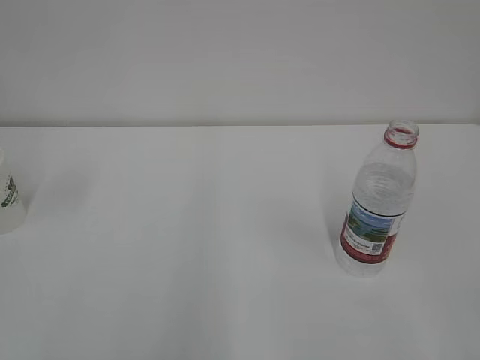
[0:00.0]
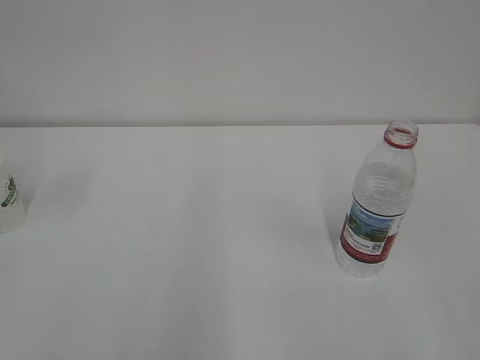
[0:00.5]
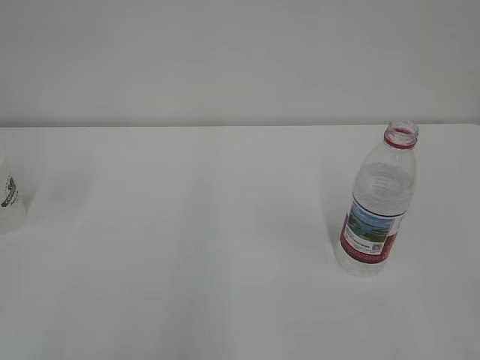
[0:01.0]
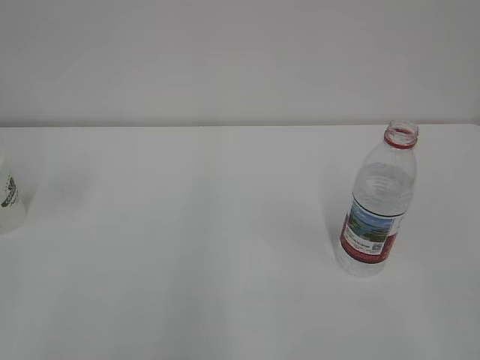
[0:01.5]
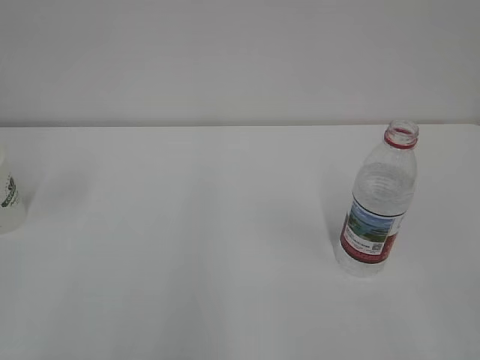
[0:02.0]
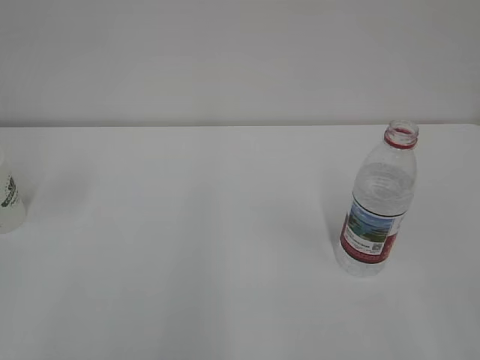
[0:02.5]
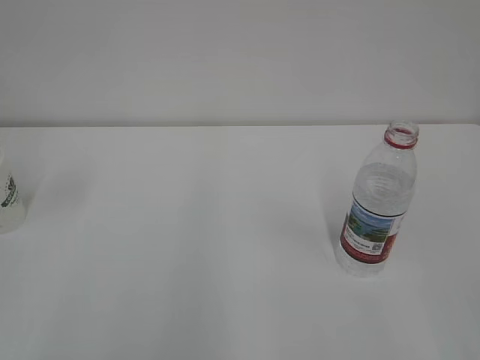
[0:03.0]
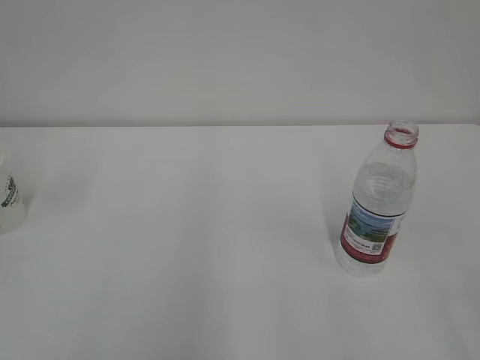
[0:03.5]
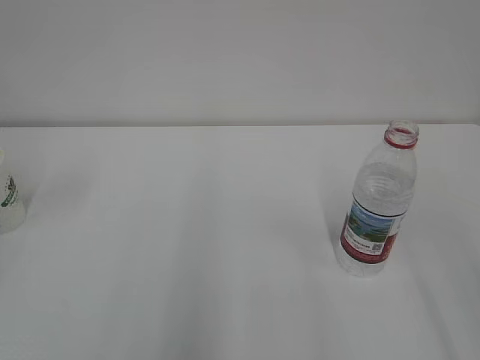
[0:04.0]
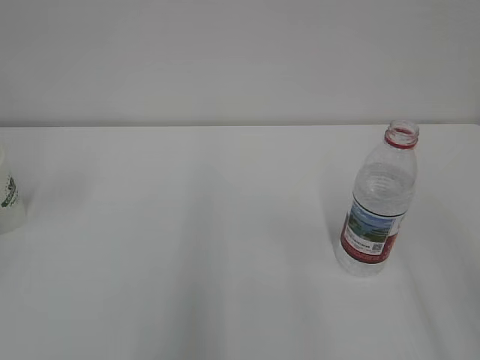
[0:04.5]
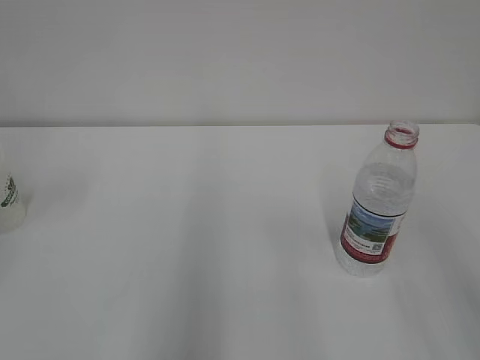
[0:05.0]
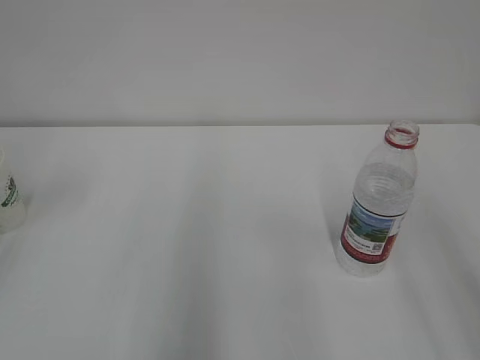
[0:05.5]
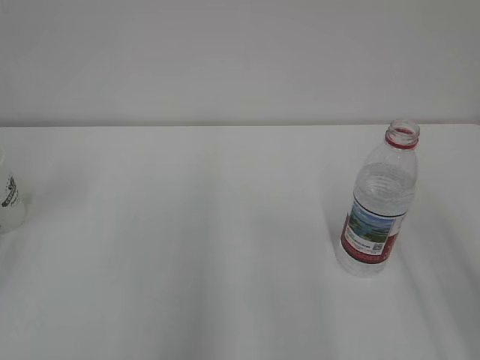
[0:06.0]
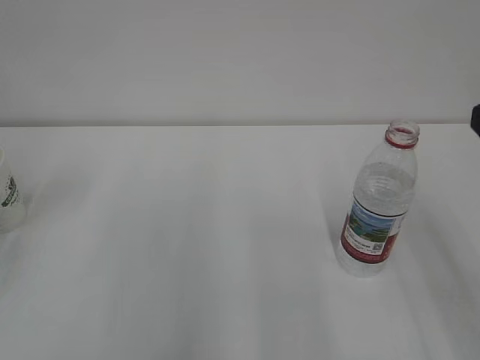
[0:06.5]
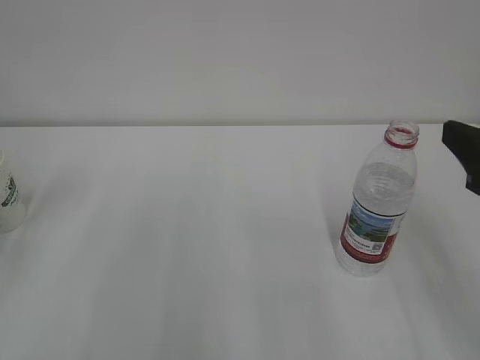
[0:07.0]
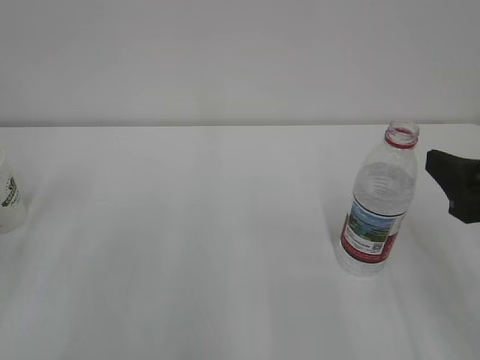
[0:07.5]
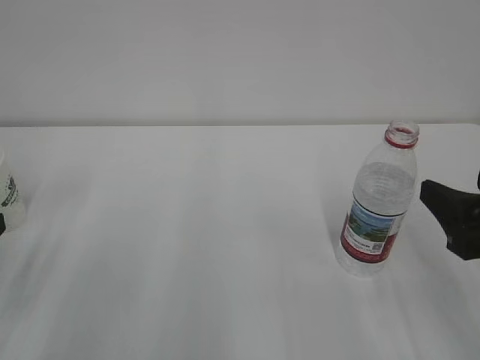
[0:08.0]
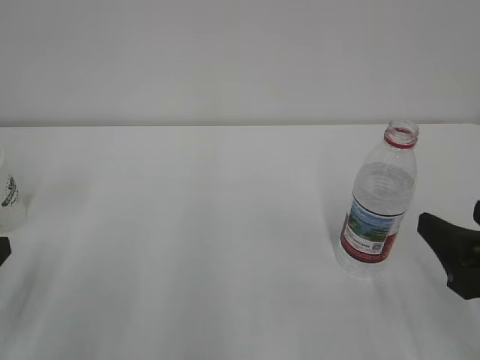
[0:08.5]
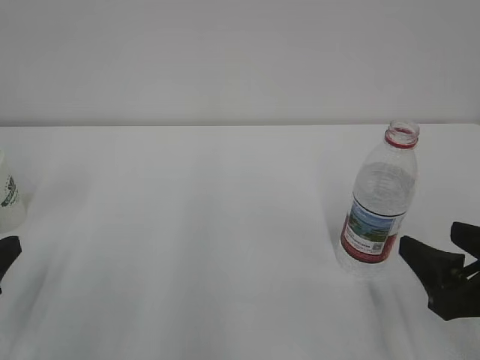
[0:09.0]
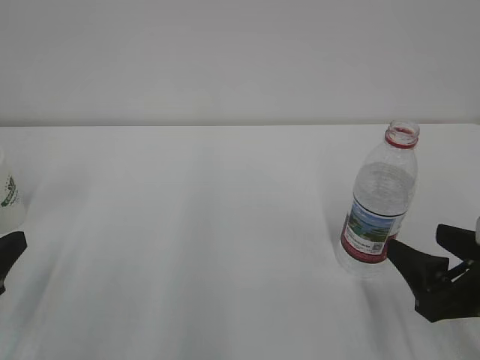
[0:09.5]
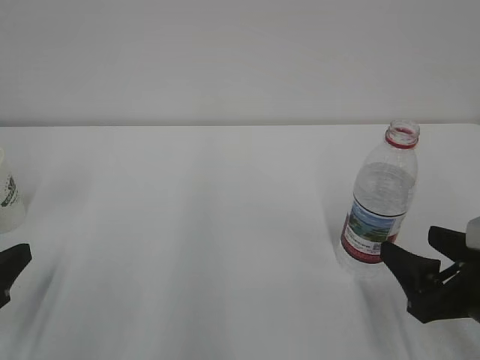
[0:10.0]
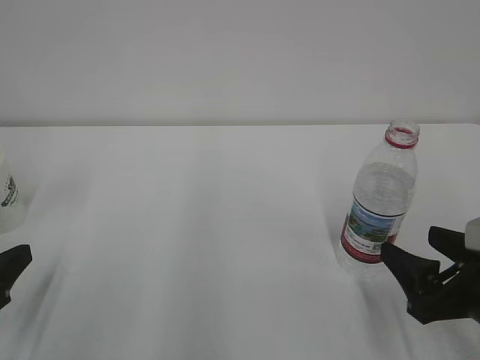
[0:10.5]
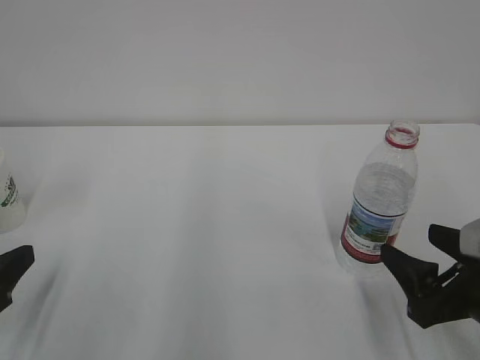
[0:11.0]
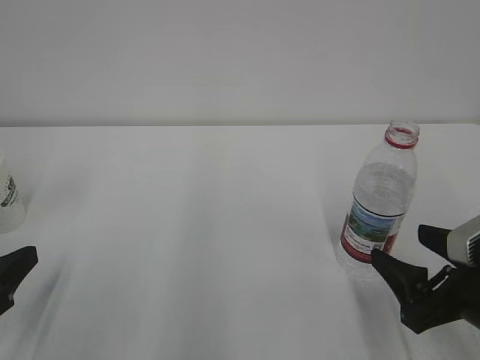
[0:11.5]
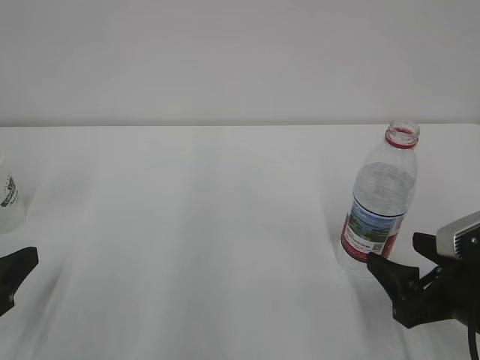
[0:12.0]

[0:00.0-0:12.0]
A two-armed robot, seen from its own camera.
0:06.0 to 0:08.0: The right gripper shifts approximately 10 cm downward.
0:08.0 to 0:10.0: The right gripper is displaced downward by about 10 cm.
0:10.0 to 0:12.0: There are only small adjustments of the grippers.

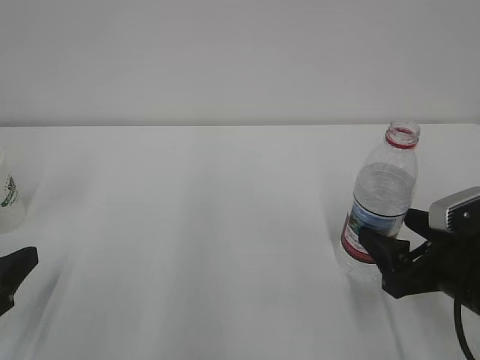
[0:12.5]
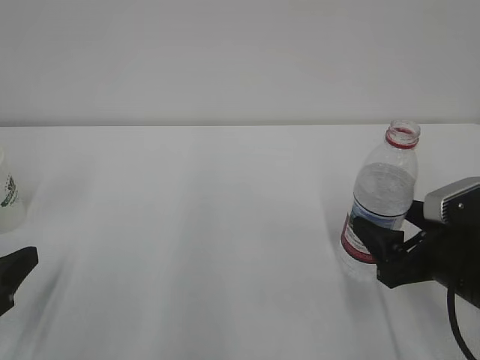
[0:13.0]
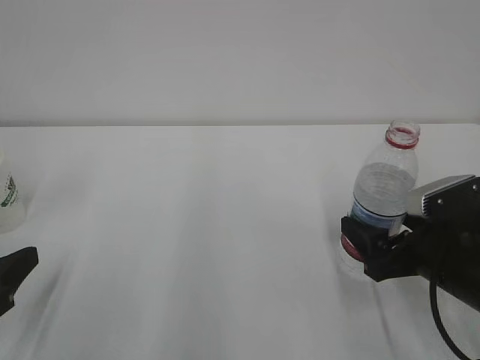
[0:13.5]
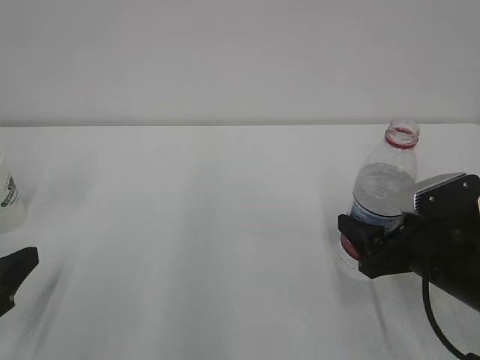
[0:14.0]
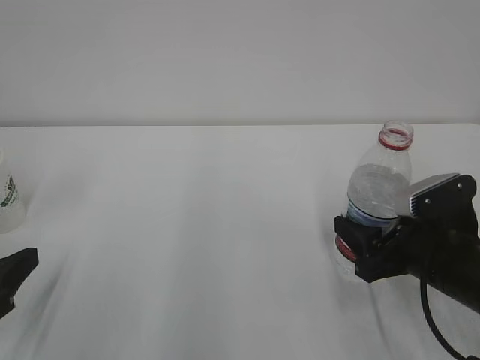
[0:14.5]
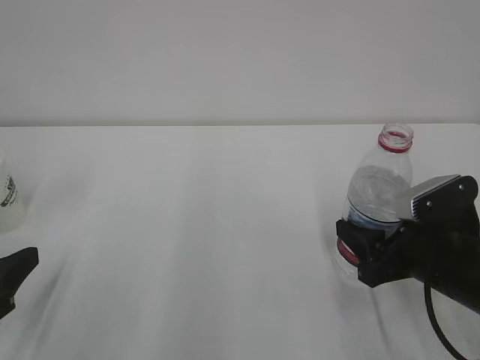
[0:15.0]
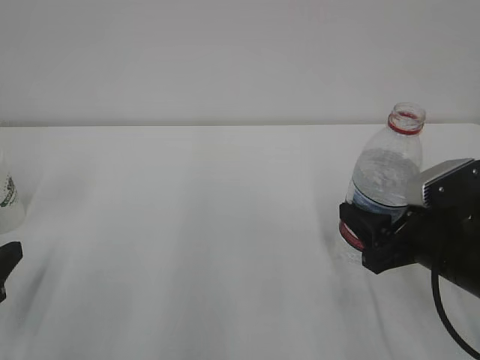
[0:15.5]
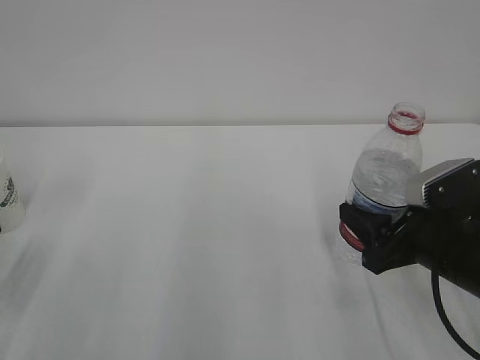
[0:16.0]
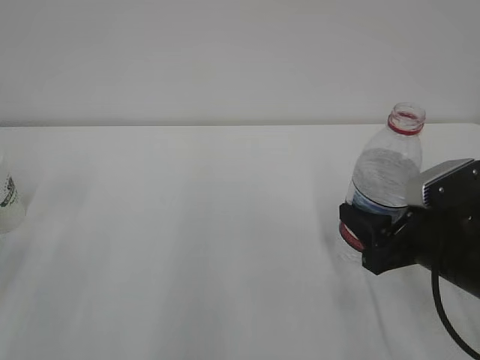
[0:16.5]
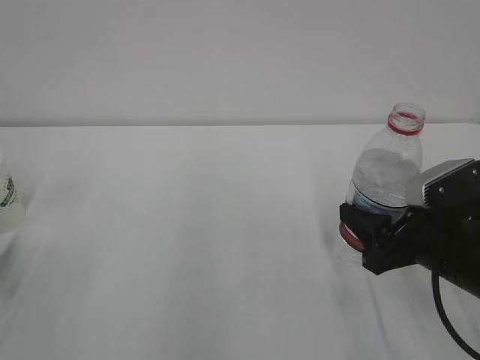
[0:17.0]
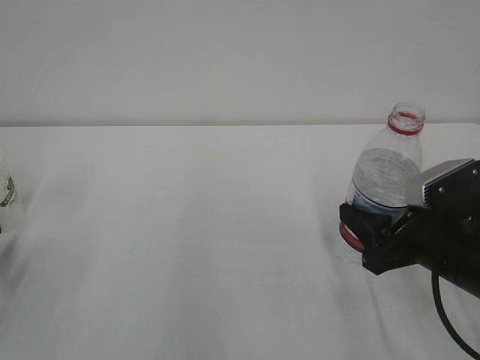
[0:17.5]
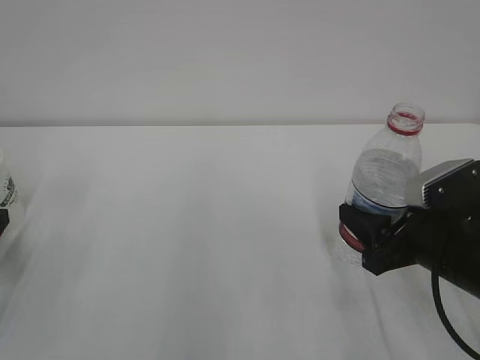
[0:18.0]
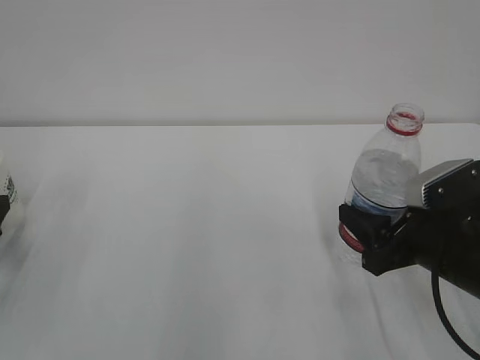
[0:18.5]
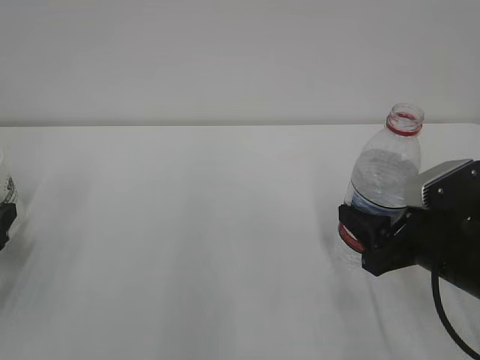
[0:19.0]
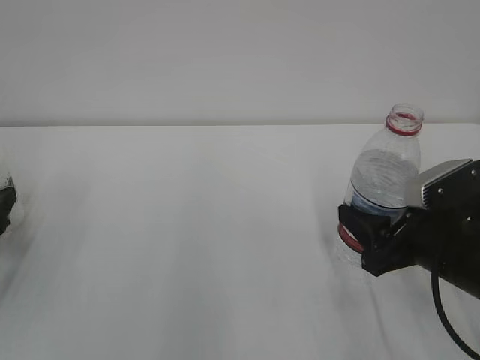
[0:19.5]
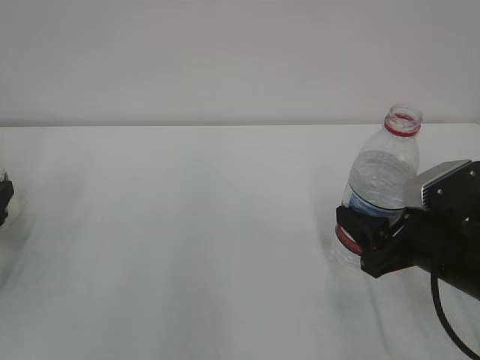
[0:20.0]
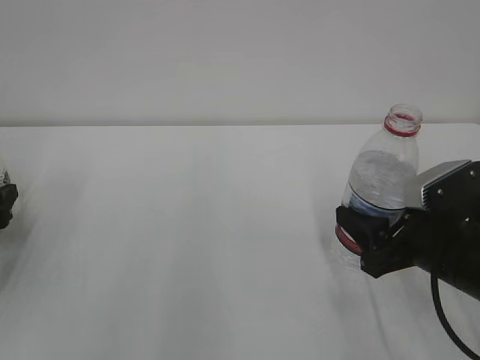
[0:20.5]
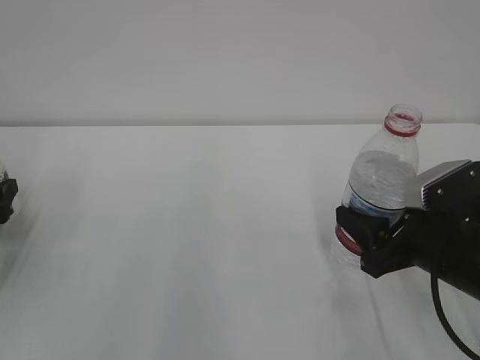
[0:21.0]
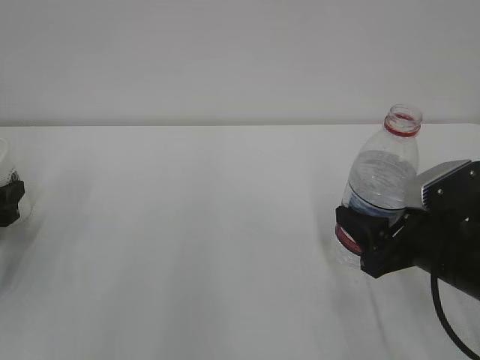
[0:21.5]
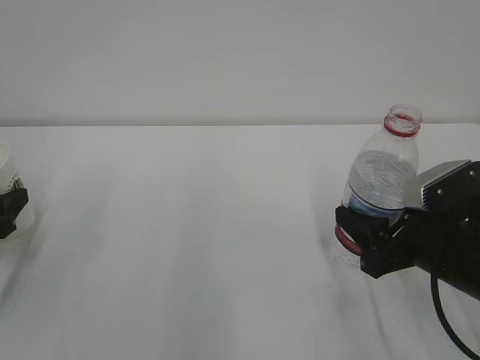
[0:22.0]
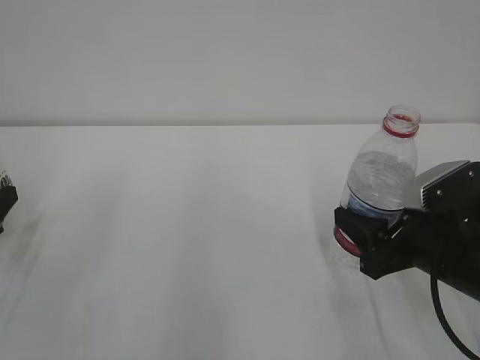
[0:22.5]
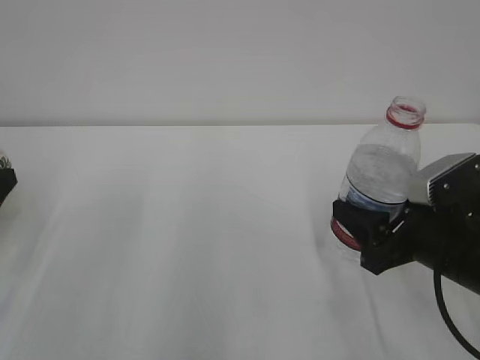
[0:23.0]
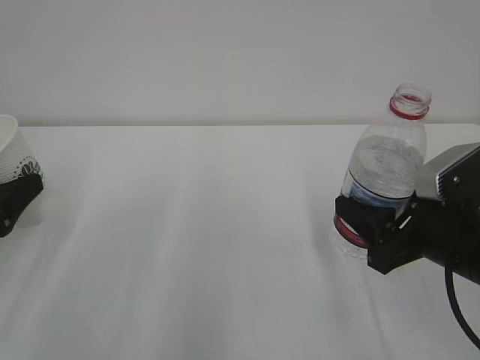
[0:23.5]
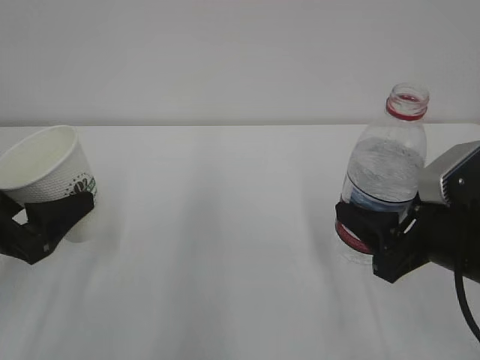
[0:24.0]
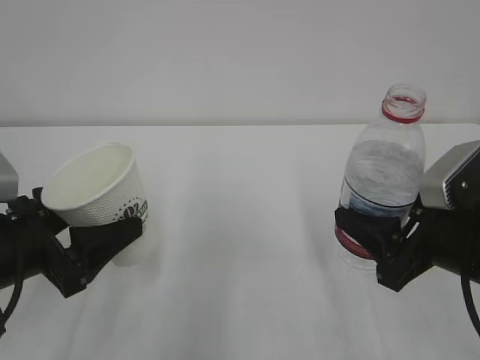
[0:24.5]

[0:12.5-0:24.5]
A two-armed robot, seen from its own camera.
0:12.5 to 0:14.5: The right gripper closes up.
0:14.5 to 0:16.5: The left gripper is displaced to the left by about 5 cm.
0:20.5 to 0:22.5: The left gripper heads backward, covering some 5 cm, and closes its fingers.
0:22.5 to 0:24.5: The left gripper heads to the right, covering about 10 cm; the right gripper moves about 5 cm.

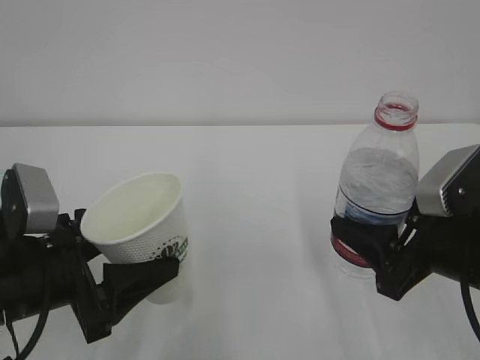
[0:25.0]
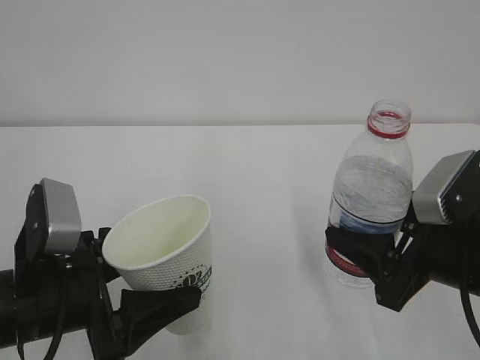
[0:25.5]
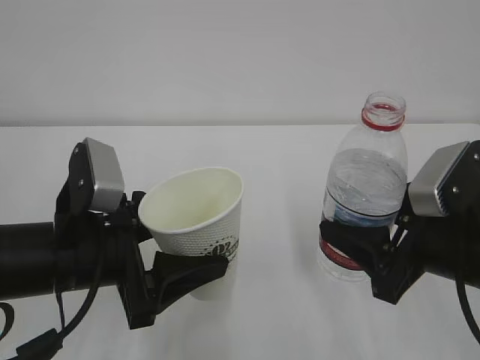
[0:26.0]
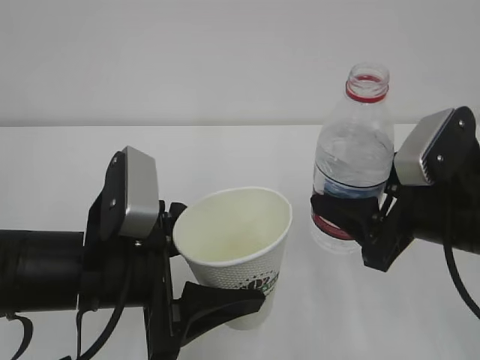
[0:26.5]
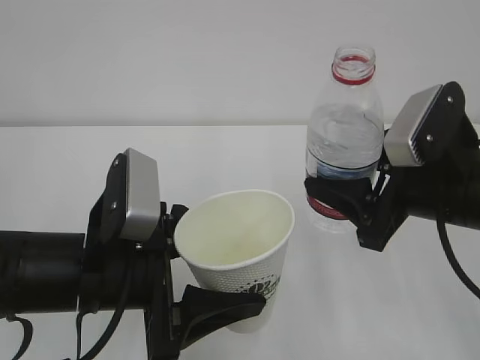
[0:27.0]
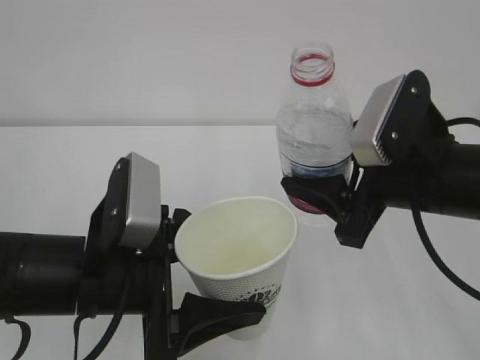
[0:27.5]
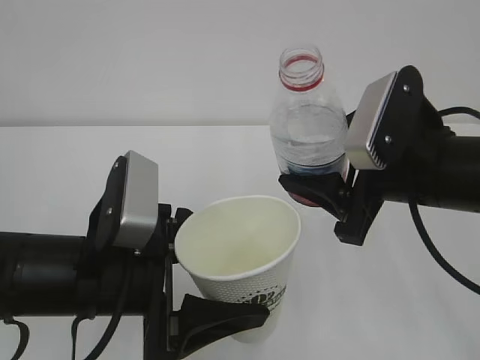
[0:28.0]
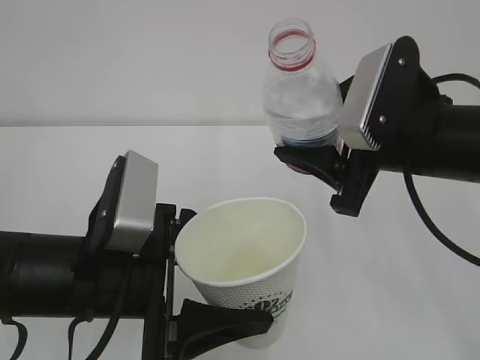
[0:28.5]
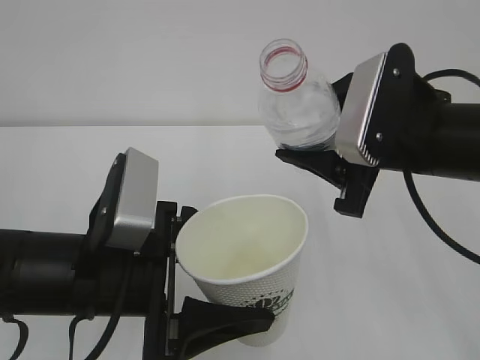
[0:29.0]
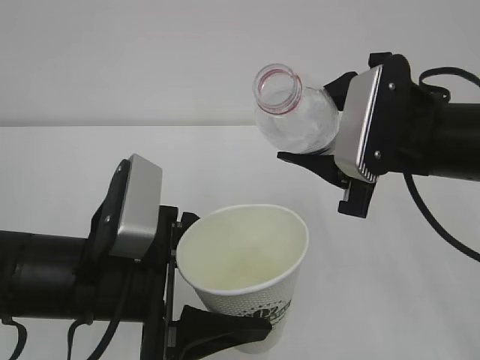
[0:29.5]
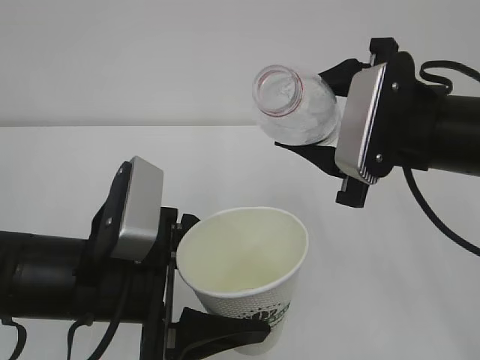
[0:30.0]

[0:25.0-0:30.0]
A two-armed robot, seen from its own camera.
0:25.0 to 0:27.5: The left gripper heads to the right, covering some 5 cm, while the right gripper travels upward by about 5 cm.
